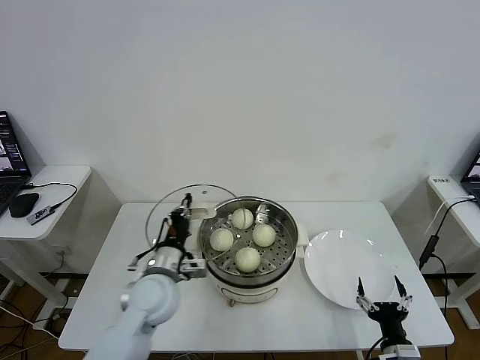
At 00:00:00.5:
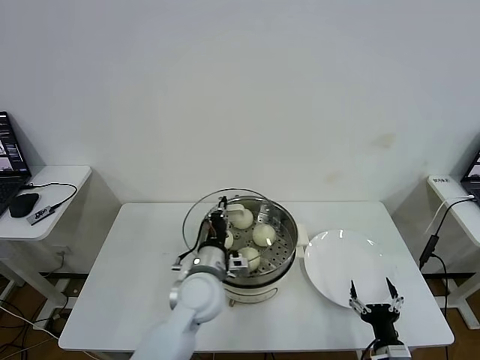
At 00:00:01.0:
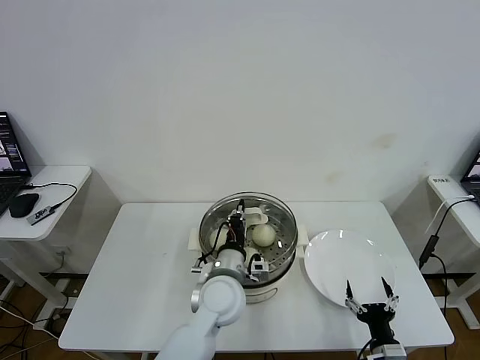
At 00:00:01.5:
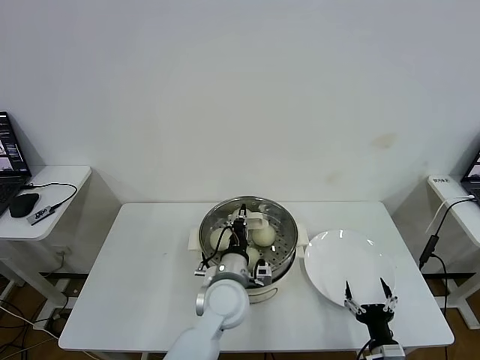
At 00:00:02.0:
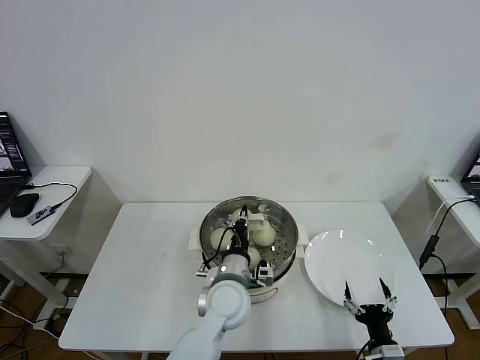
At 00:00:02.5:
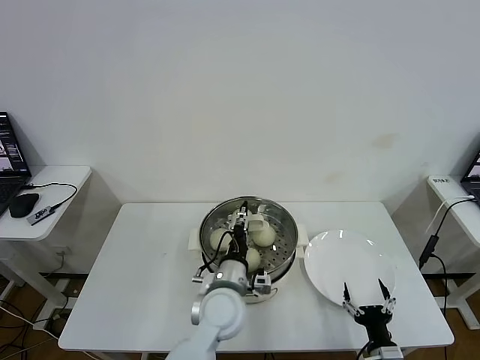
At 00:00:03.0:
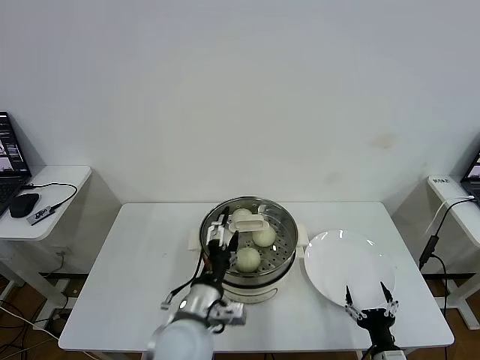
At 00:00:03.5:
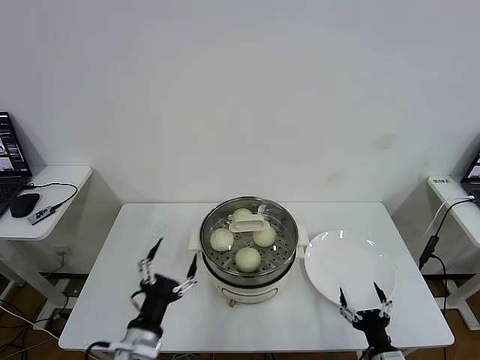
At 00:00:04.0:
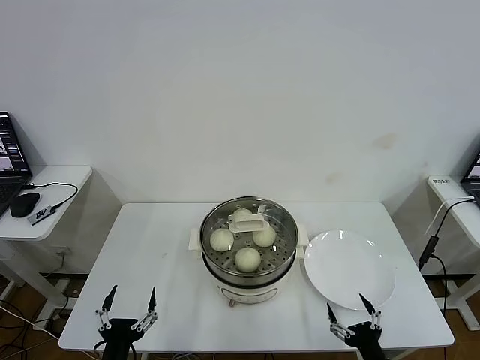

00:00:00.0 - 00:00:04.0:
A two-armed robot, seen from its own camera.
Task of the whole recording: take steamed baozi put them in steamer then cover it.
Step, 00:00:00.0 - 00:00:02.0: Place the pot lid on the steamer with left gripper.
00:00:00.0 - 00:00:02.0: The left gripper moves to the right, some 15 cm.
00:00:02.0 - 00:00:04.0: The left gripper goes roughly 30 cm to the left and backward, and opens its fingers.
